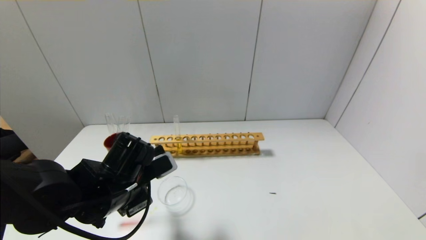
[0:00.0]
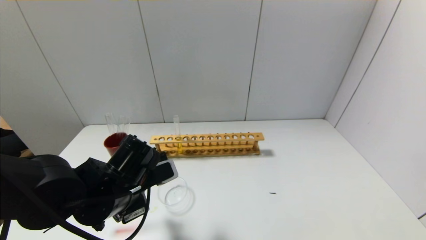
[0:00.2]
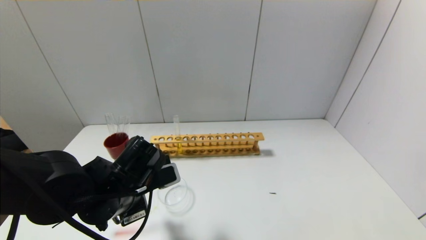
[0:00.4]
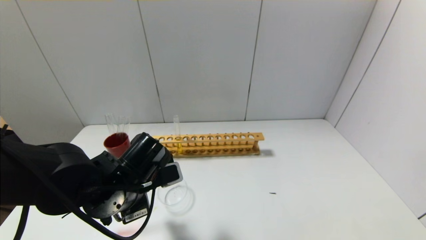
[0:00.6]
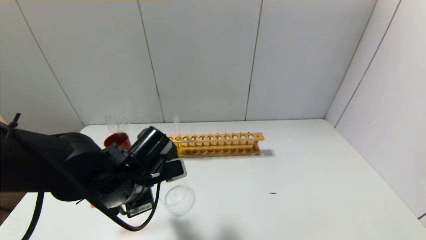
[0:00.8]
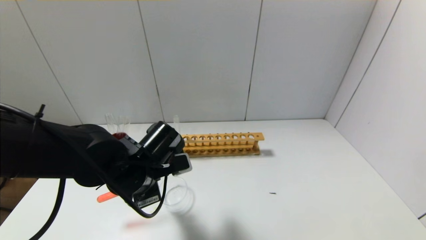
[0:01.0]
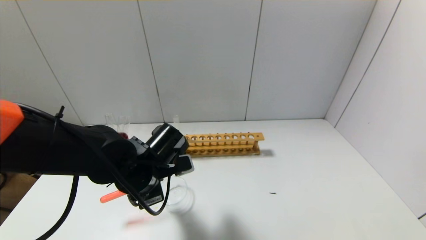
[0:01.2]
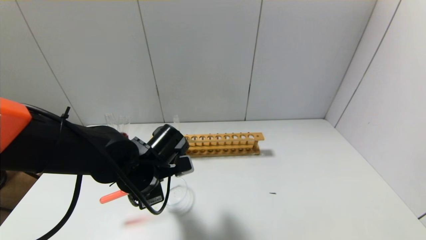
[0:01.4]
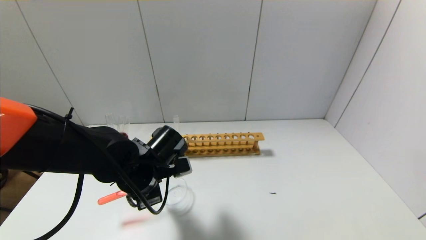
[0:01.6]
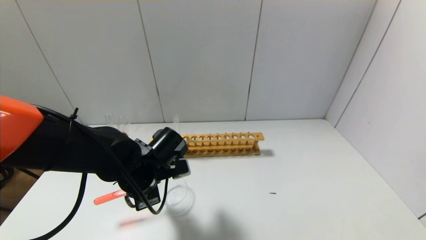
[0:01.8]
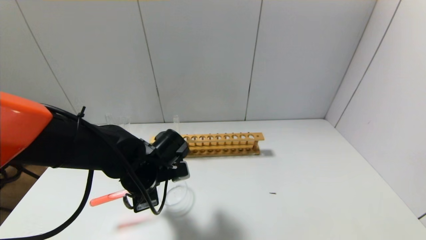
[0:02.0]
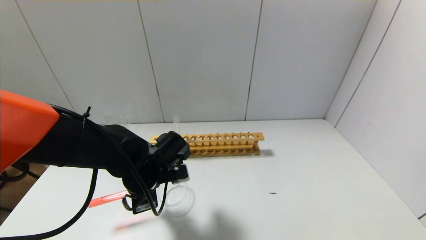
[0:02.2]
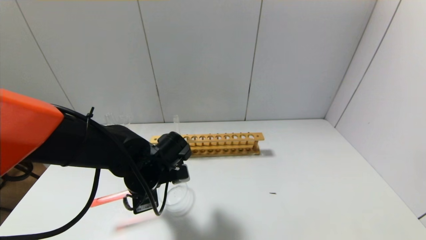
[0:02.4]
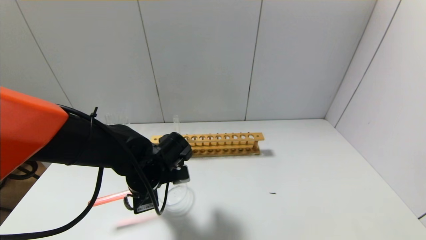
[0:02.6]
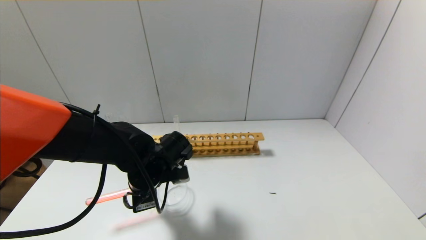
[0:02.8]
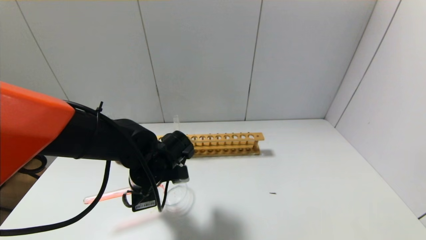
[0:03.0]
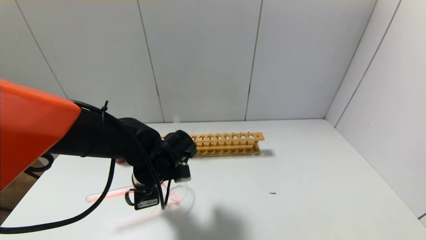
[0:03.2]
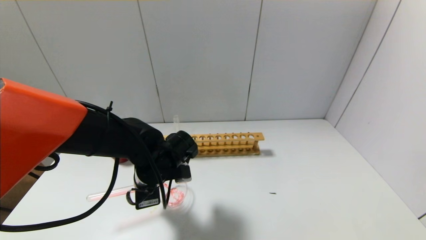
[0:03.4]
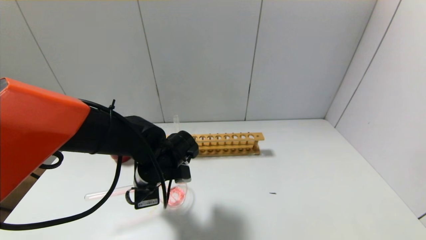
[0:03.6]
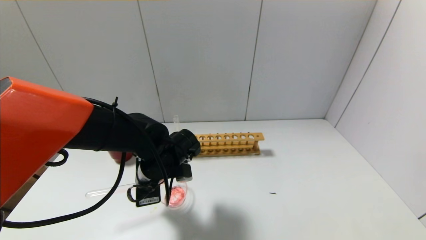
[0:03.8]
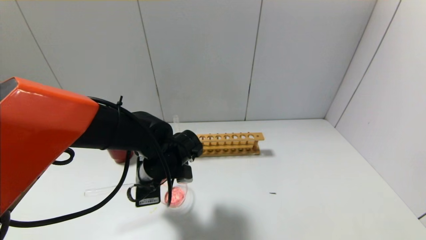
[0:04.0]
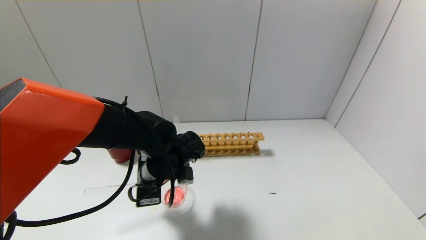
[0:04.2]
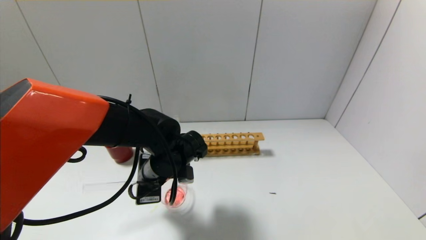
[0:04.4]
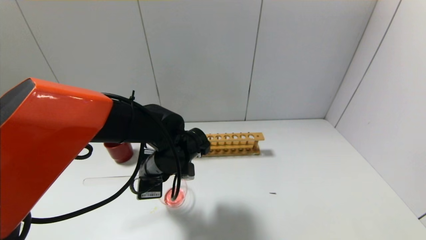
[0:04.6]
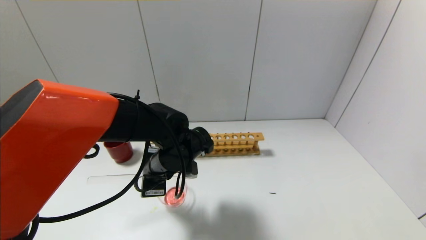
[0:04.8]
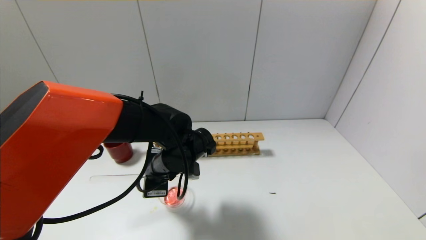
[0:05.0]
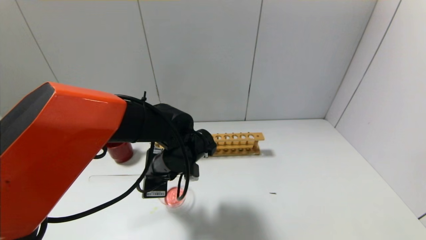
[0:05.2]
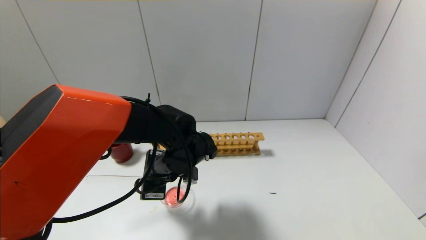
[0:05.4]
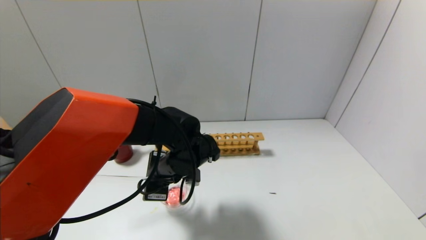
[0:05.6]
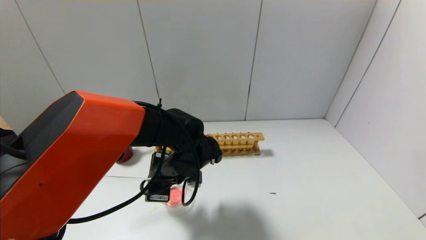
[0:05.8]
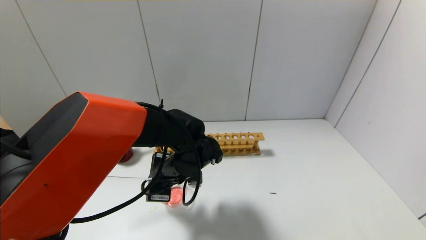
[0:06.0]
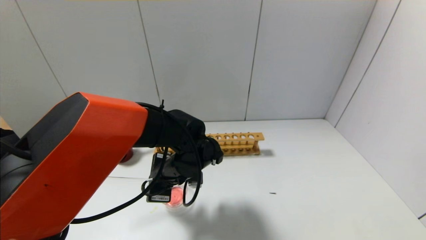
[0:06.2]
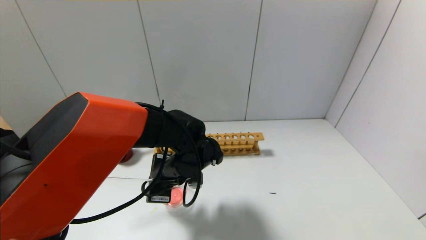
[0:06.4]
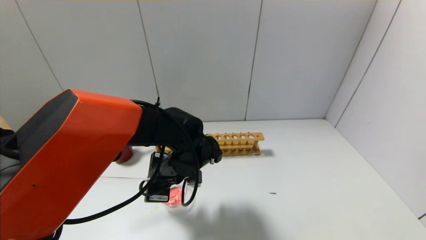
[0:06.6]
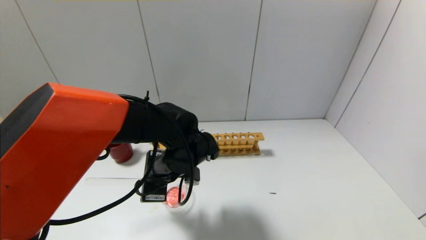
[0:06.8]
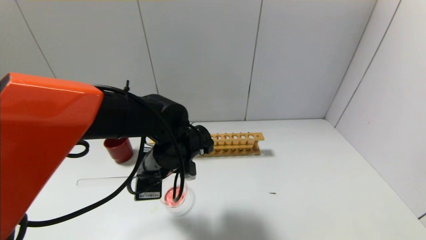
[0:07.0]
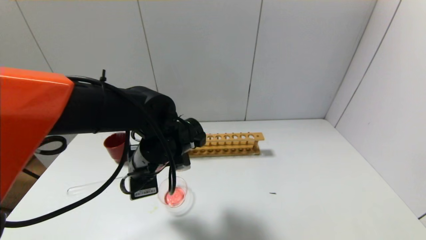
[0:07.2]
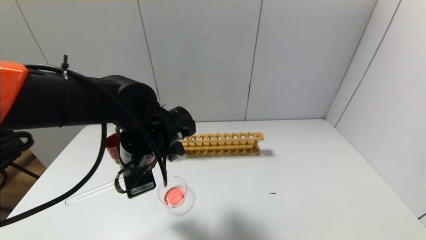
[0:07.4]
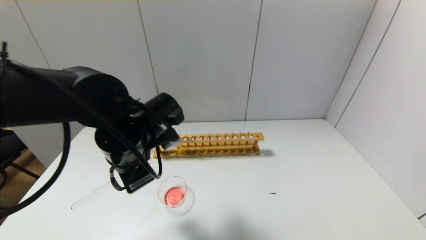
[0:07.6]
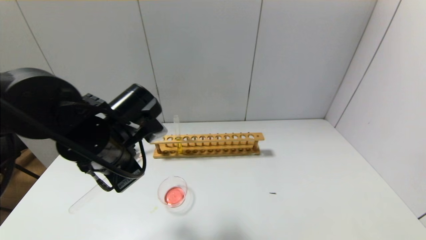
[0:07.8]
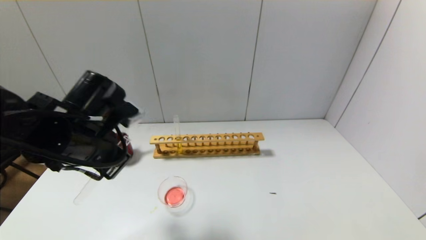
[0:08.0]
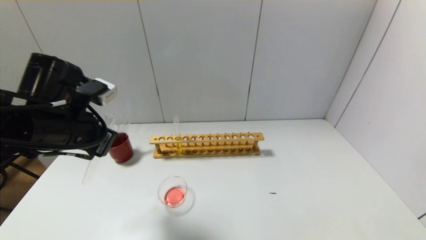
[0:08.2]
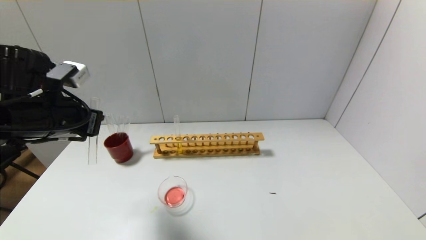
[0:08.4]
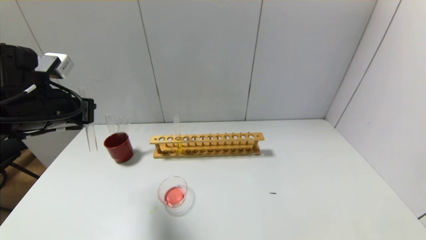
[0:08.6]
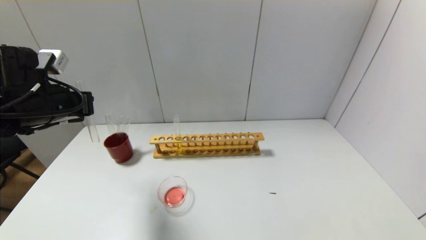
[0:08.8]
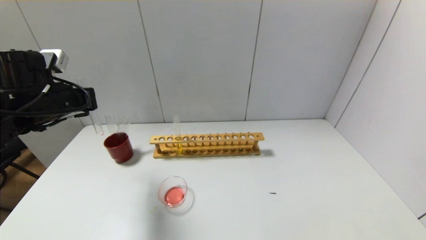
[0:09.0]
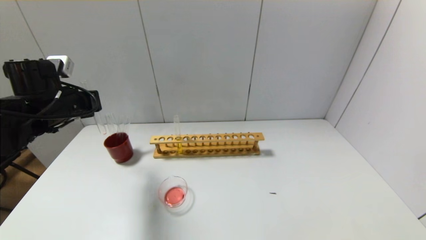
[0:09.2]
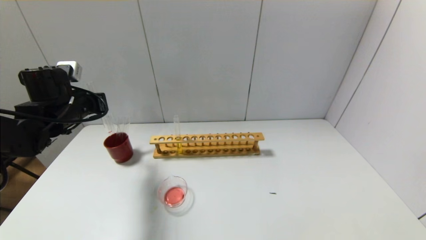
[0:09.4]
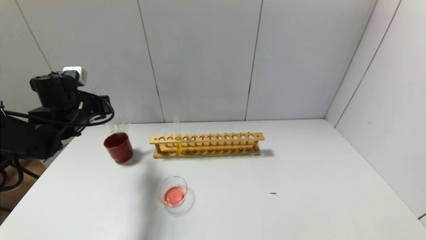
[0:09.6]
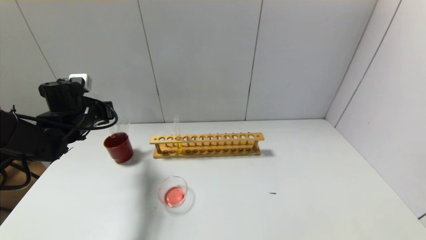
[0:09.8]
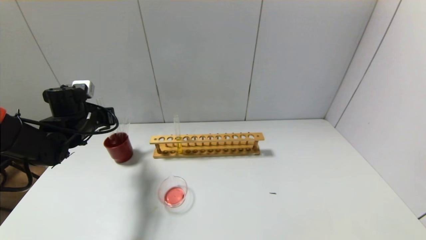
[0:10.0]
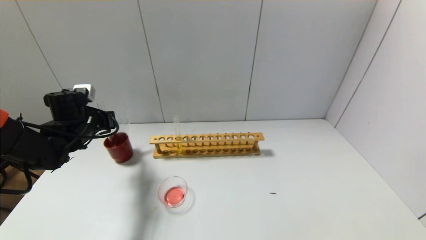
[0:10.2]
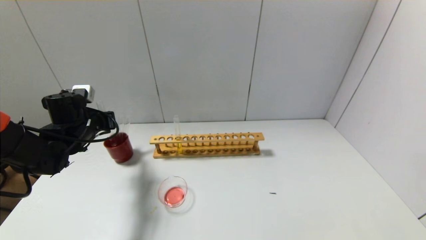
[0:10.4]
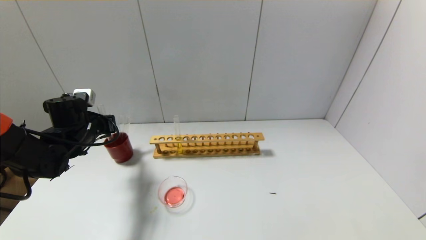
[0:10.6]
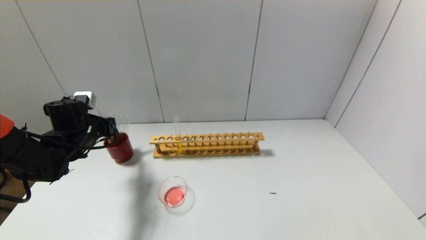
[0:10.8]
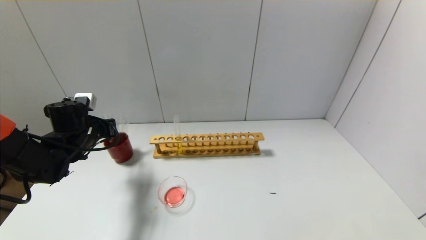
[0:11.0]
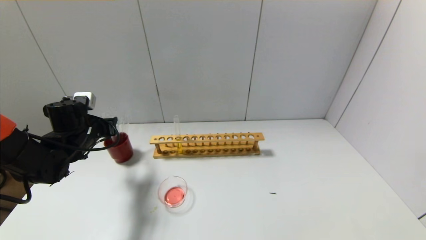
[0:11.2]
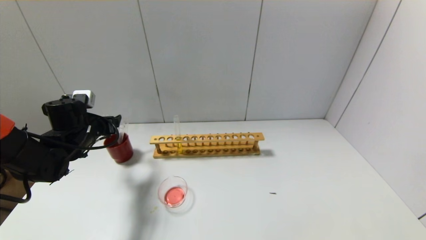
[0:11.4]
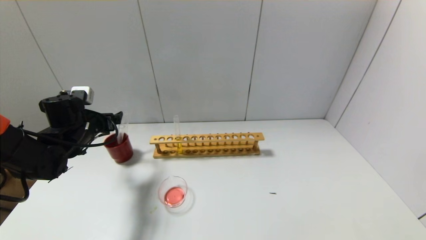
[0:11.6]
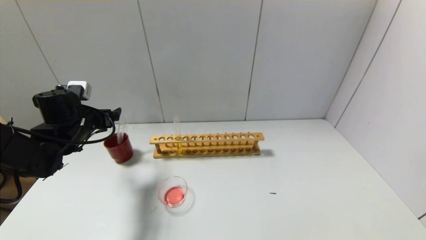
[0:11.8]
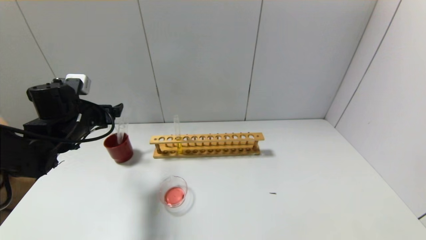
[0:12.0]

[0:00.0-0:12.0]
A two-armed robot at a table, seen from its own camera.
Step, 0:00.0 to 0:07.2: Pour the red reagent into the graduated cylinder with the left gripper.
Step, 0:07.4 to 0:11.0: Place the test tube into the brown cup with the left gripper.
0:00.0 to 0:01.6: The left gripper ends up about 5 cm from where it was.
0:01.6 to 0:03.0: The grippers stay close to where they were, moving slightly.
0:03.0 to 0:06.0: The grippers make only small movements.
0:06.0 to 0:07.6: The left gripper is displaced upward and to the left by some 10 cm.
0:07.6 to 0:09.0: The left gripper shifts about 15 cm to the left.
0:09.0 to 0:10.4: The left gripper shifts approximately 10 cm downward and forward.
0:10.4 to 0:12.0: The left gripper opens its fingers.

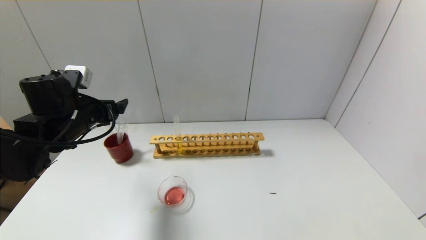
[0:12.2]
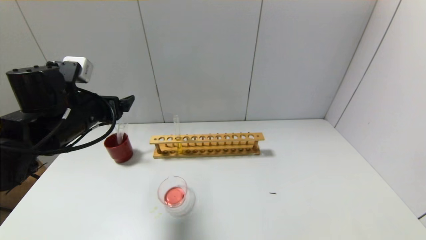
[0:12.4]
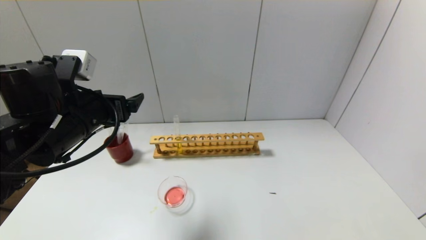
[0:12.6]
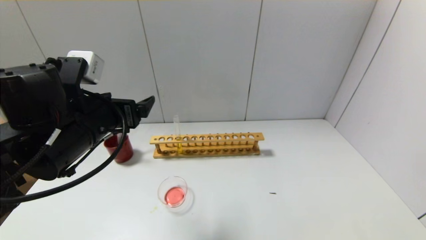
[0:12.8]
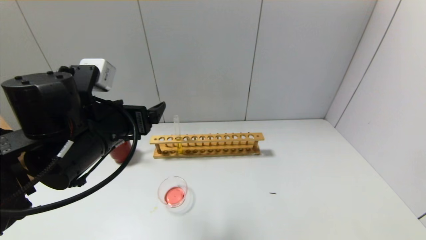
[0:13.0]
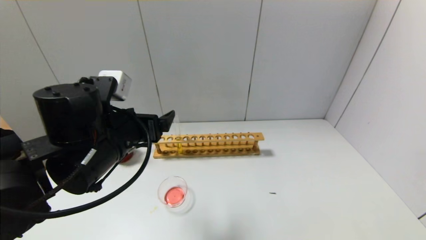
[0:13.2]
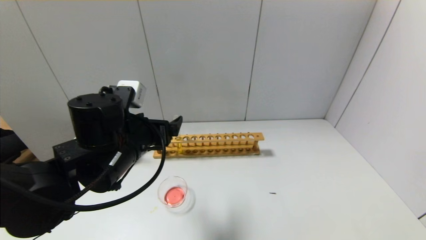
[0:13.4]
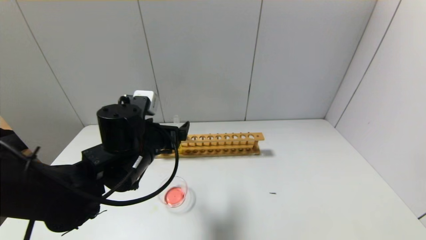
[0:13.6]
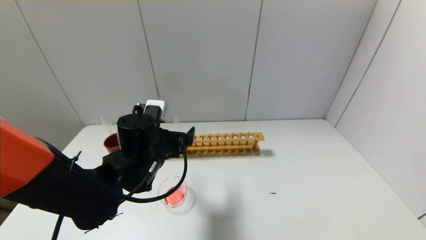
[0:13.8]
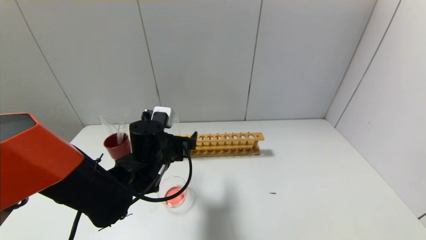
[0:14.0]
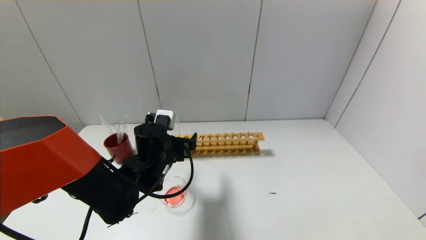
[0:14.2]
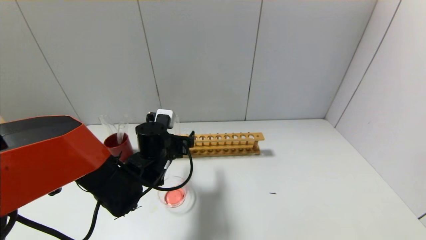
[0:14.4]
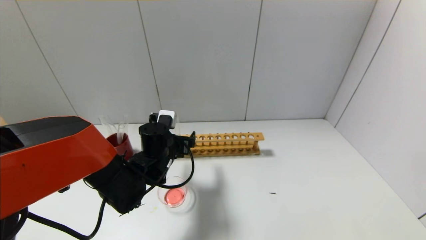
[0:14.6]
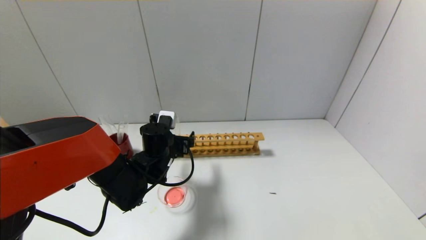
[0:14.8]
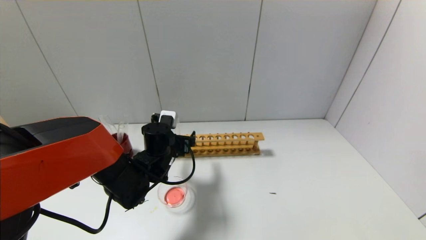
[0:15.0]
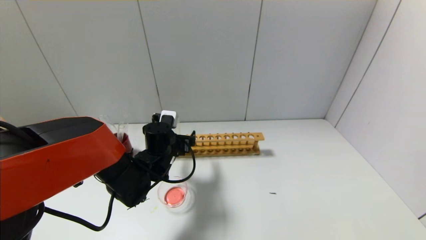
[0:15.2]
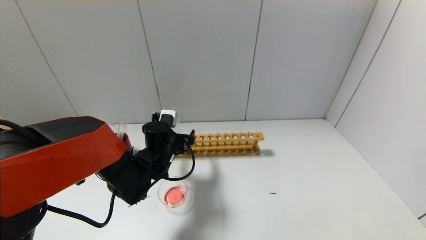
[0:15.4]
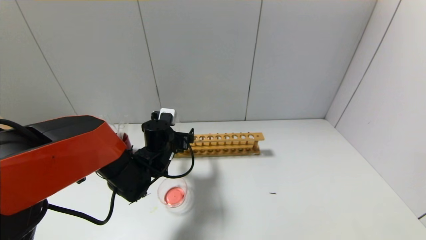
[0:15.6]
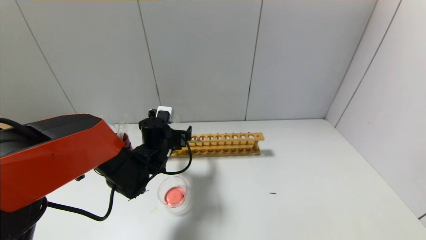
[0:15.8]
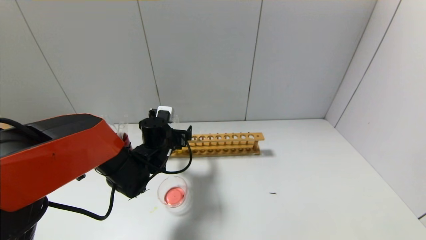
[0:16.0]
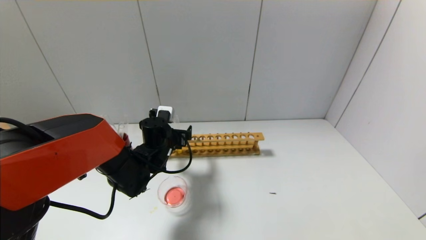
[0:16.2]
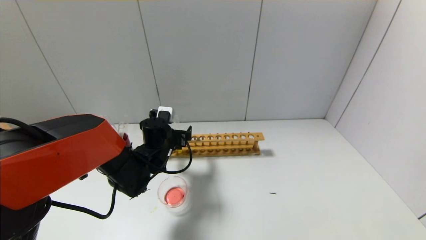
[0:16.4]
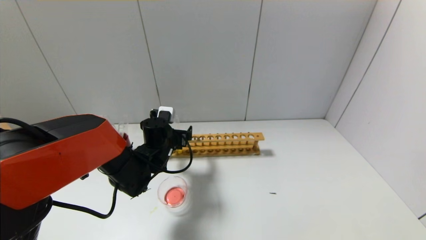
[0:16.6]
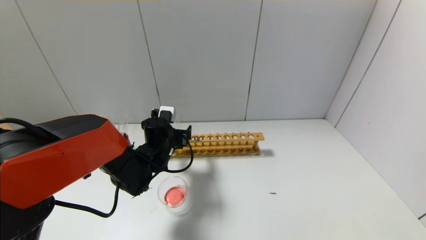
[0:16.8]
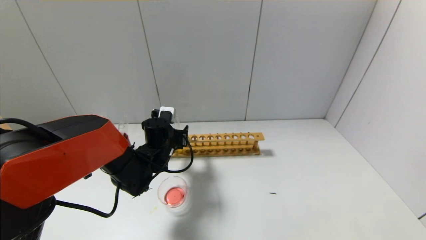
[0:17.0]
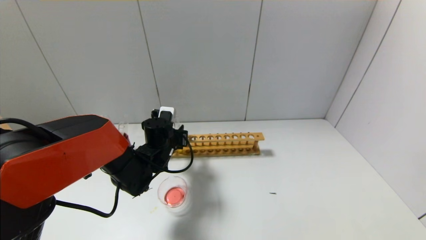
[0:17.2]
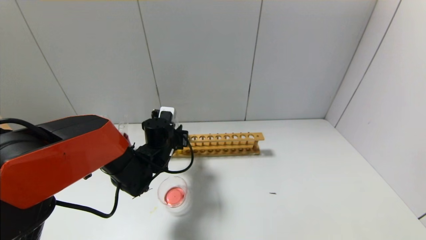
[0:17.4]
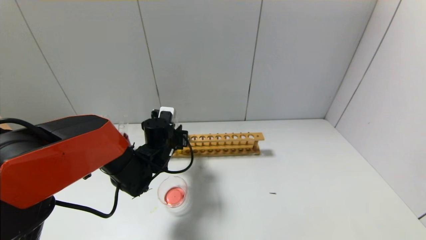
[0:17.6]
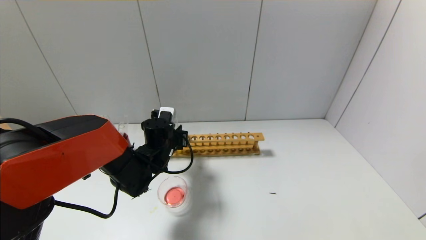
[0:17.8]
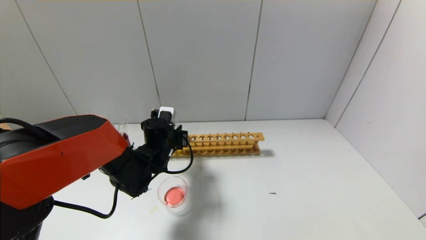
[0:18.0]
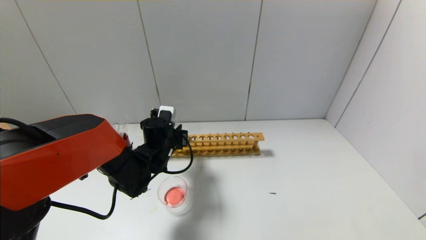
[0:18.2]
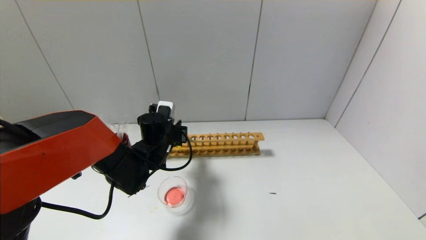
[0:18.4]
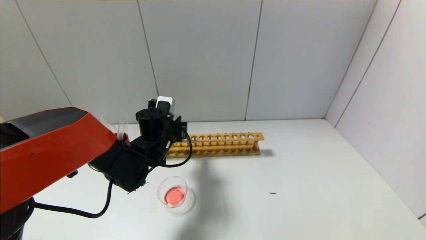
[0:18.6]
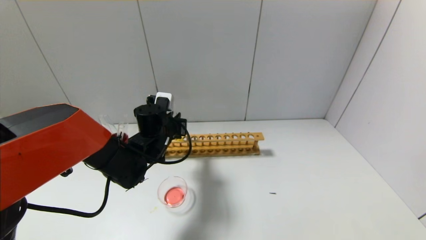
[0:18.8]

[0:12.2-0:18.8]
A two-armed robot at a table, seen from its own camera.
Step, 0:12.2 to 0:17.4: Grasp the yellow reagent with the left gripper.
0:12.2 to 0:13.8: The left gripper moves to the right and downward, some 15 cm.
0:13.8 to 0:15.4: The left gripper is displaced forward and downward by approximately 10 cm.
0:15.4 to 0:17.2: The left gripper closes up.
0:17.2 to 0:18.8: The grippers stay close to where they were, moving slightly.
